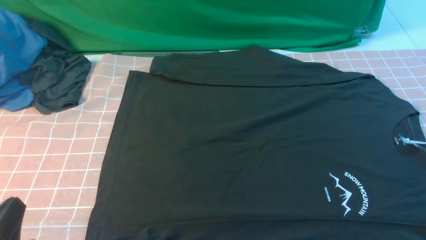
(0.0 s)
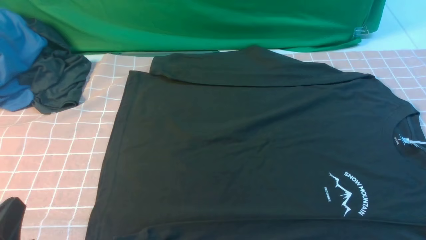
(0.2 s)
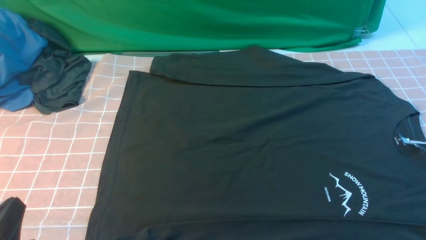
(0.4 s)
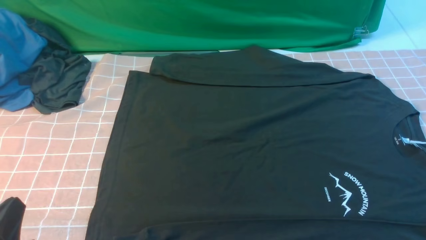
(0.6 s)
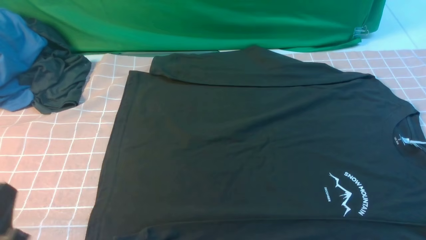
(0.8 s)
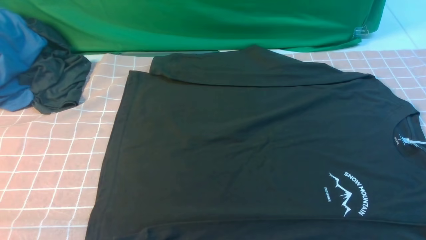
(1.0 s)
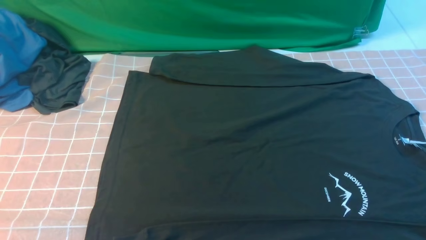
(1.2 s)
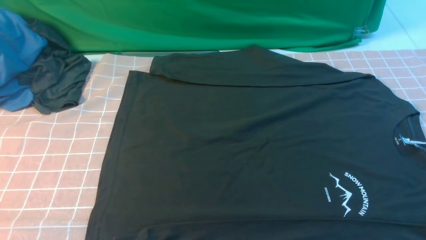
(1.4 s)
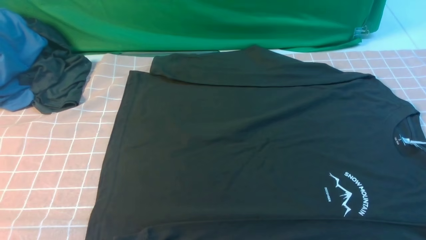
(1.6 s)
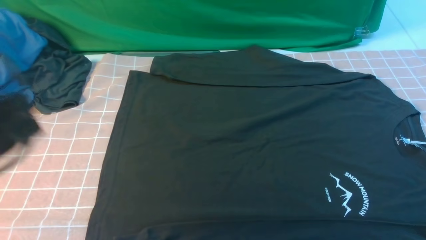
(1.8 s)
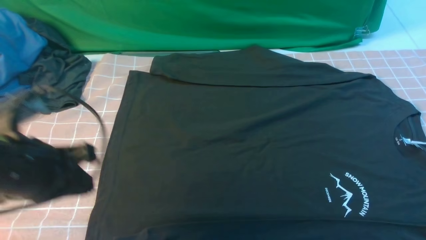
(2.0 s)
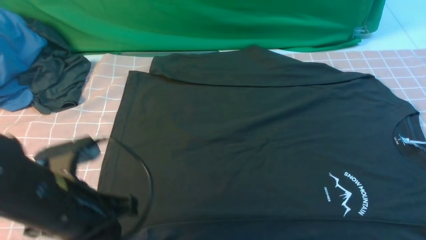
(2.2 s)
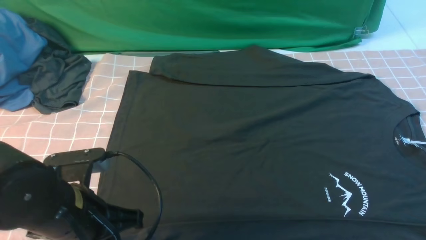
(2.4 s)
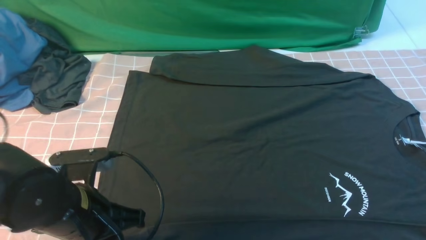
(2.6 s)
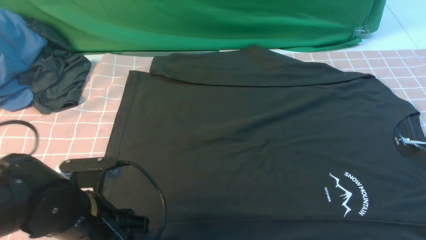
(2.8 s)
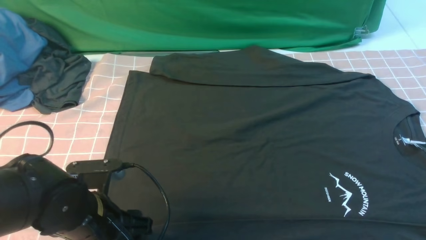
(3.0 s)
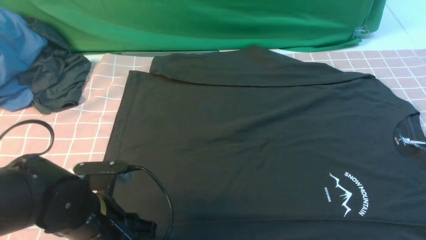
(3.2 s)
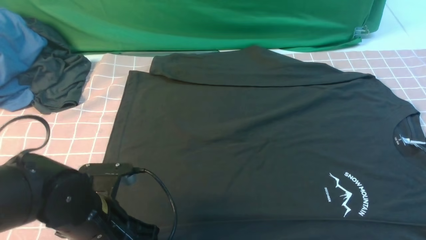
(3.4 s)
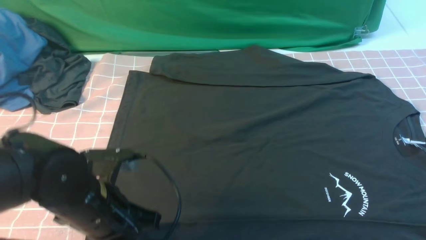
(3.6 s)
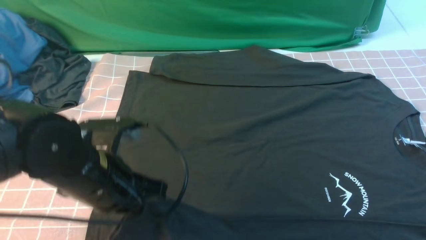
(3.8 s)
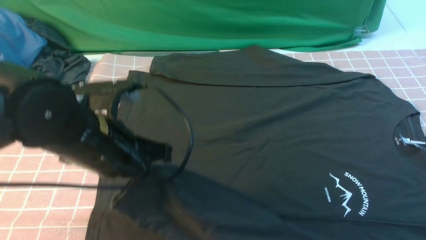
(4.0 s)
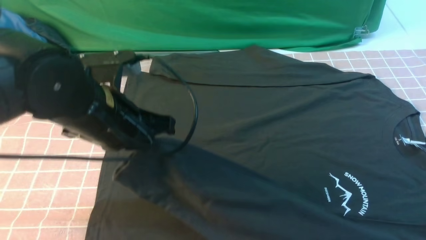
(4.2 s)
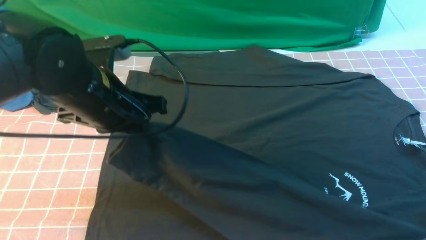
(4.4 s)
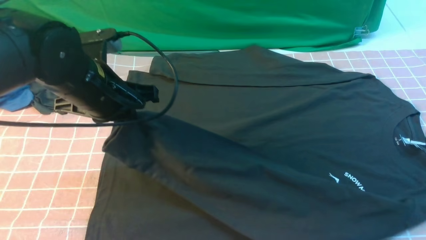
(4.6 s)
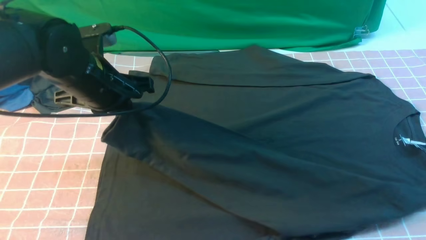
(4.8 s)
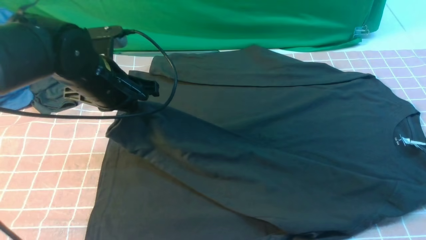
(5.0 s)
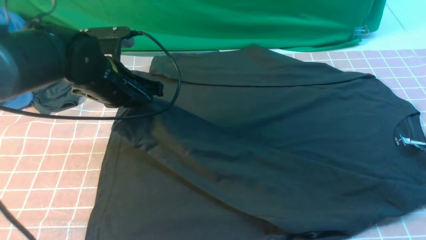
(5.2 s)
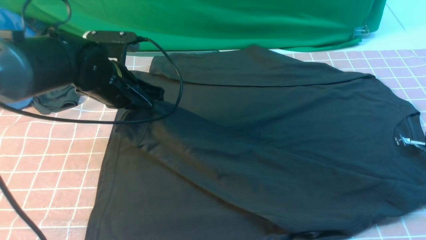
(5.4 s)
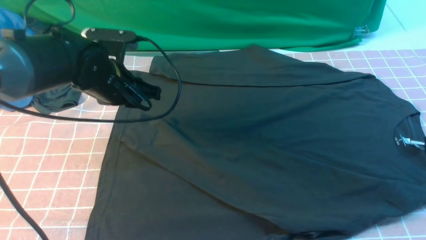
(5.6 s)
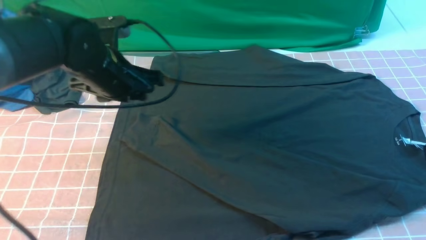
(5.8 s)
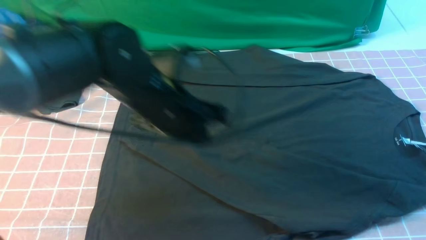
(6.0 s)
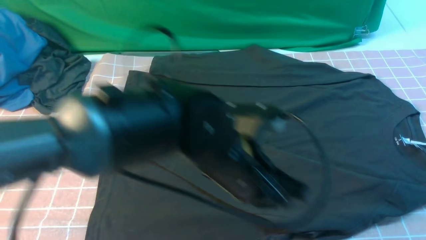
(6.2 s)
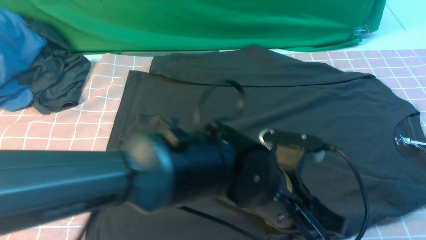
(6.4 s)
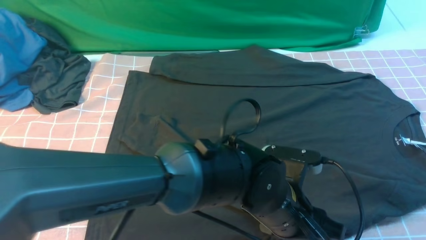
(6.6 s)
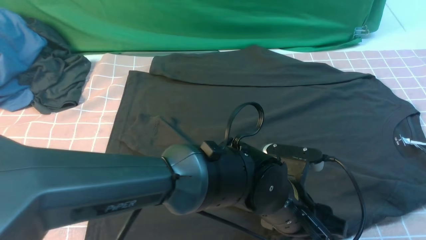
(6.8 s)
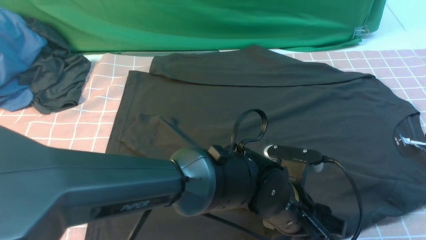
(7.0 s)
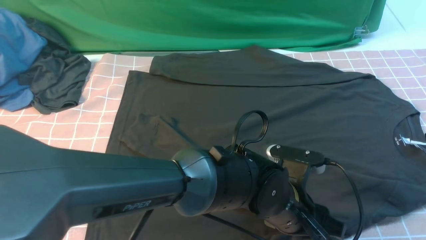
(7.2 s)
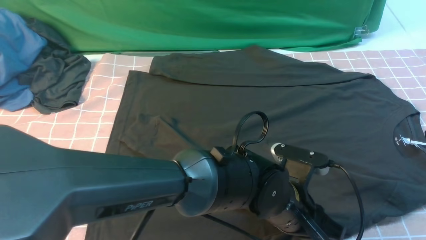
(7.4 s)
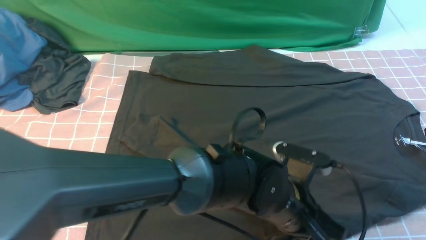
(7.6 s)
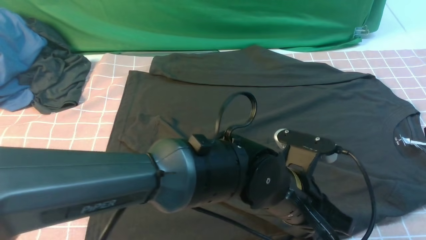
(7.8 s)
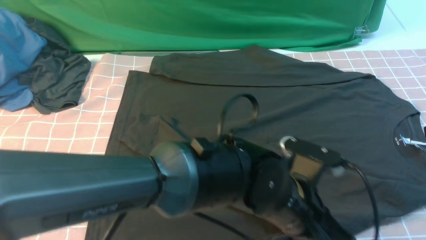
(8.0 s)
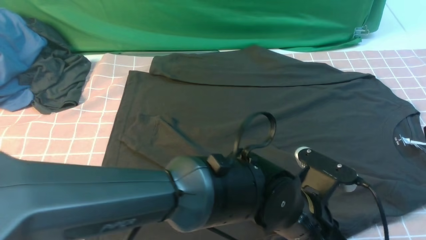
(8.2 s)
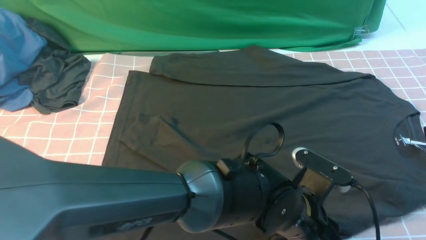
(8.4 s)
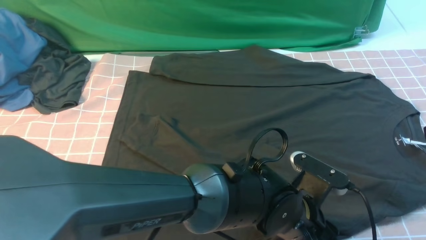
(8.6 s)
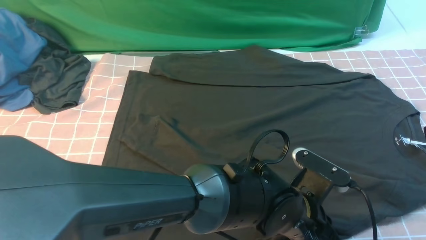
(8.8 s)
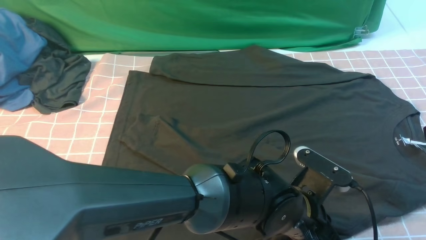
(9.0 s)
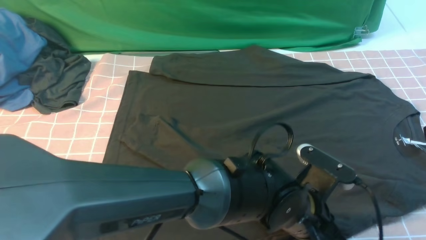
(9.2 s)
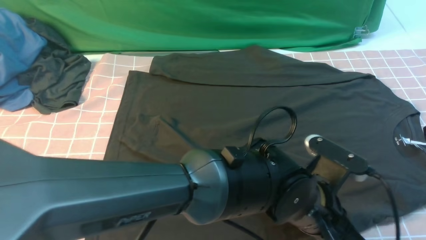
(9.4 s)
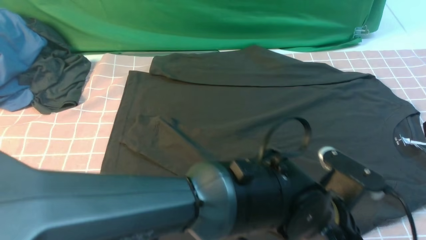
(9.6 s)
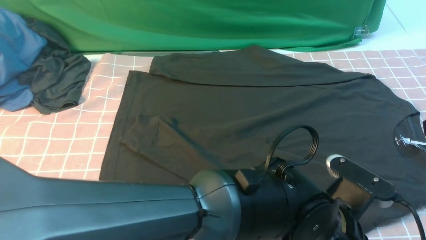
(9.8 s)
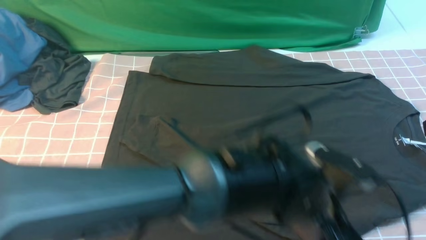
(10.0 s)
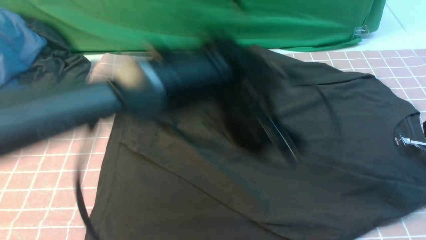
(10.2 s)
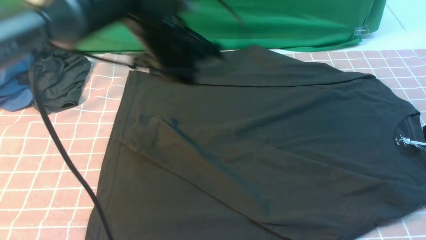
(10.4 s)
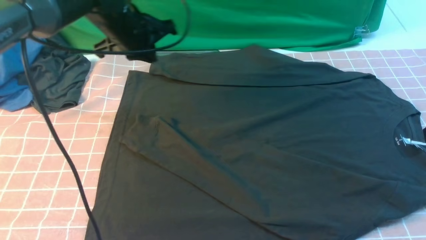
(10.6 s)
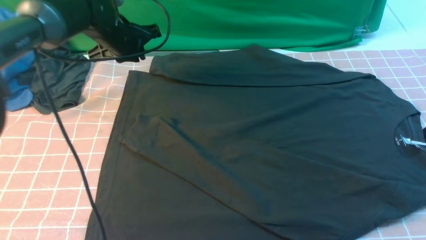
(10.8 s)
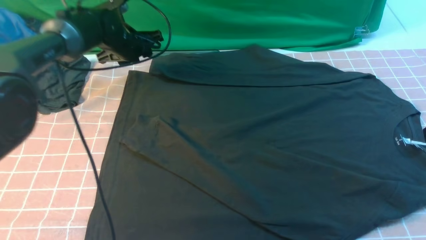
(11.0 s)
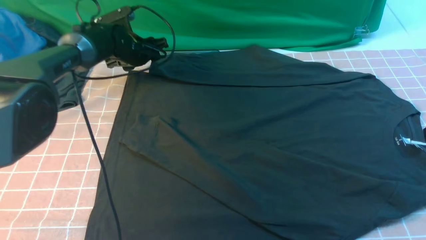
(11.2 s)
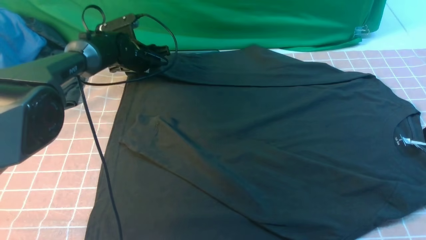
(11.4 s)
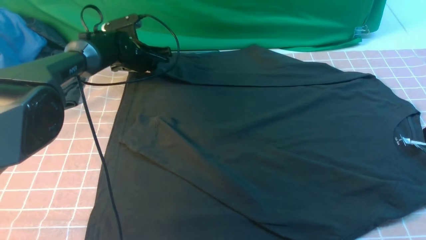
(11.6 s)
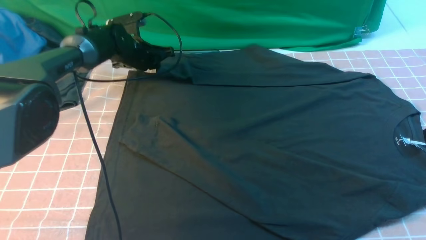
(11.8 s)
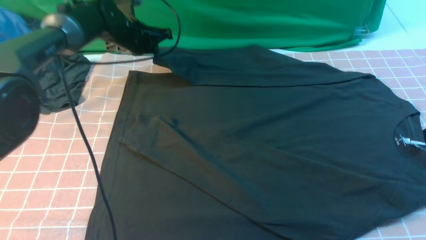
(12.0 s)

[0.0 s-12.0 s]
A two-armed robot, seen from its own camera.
Step, 0.0 to 3.6 s: use the left arm to clamp the cuff closest to it.
Step, 4.0 to 5.6 s: use the left arm to drag and place the cuff at the centered position on the left edge of the fabric.
Step, 5.8 to 9.2 s: use the left arm to clamp the cuff farthest from it.
0.0 to 1.6 s: The left gripper travels upward by about 15 cm.
1.6 to 3.0 s: The left gripper heads downward, to the right and forward, covering approximately 20 cm, and opens. Meanwhile the right gripper heads upward and forward, covering approximately 15 cm, and closes up.
3.0 to 4.4 s: The left gripper heads upward and forward, covering some 15 cm, and closes its fingers.
4.4 to 6.0 s: The left gripper shifts some 10 cm to the right.
6.0 to 7.6 s: The left gripper moves to the right, downward and backward, approximately 20 cm, and opens and closes again.
7.6 to 9.0 s: The left gripper opens and closes again.
9.0 to 10.4 s: The left gripper shifts roughly 30 cm forward, to the left and upward.
10.4 to 12.0 s: The left gripper moves forward, to the left and downward, about 20 cm, and opens, then closes once more.

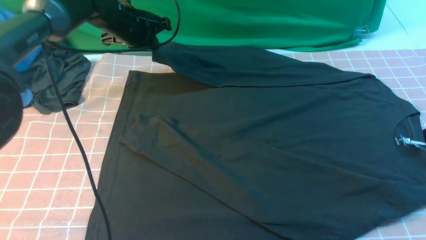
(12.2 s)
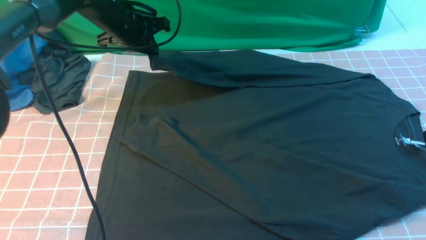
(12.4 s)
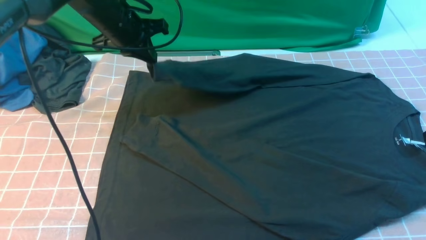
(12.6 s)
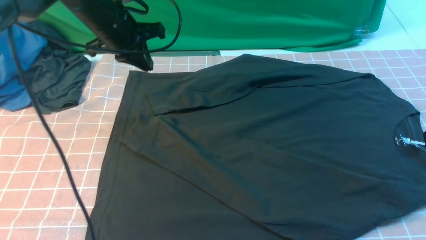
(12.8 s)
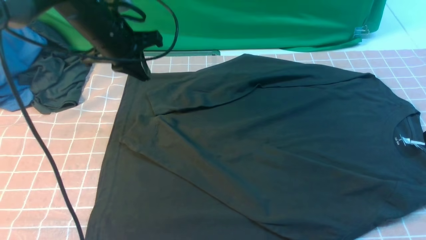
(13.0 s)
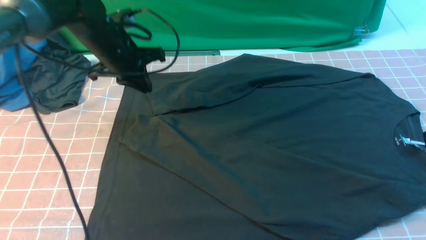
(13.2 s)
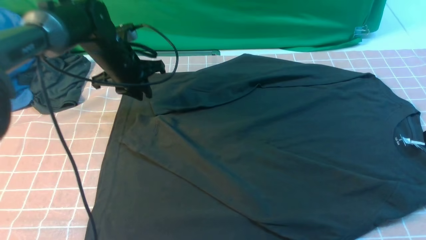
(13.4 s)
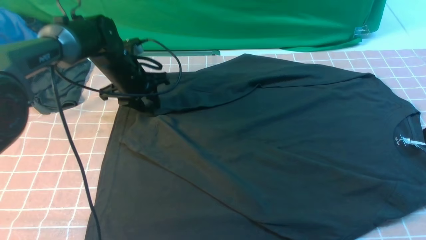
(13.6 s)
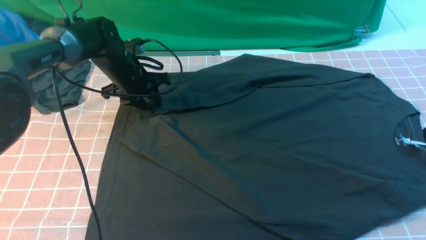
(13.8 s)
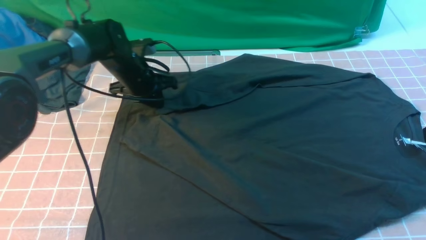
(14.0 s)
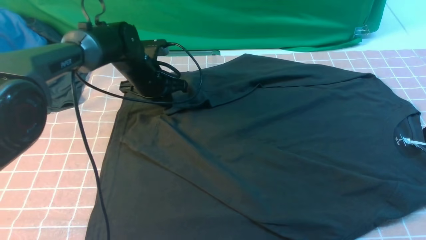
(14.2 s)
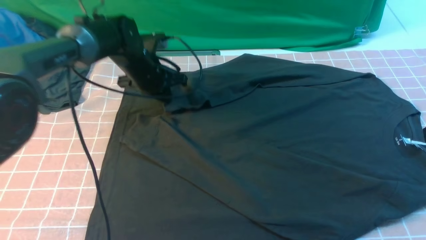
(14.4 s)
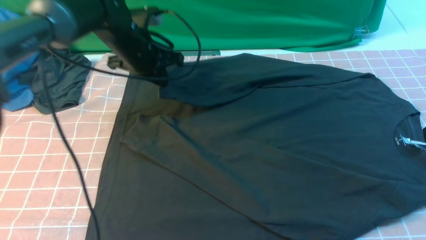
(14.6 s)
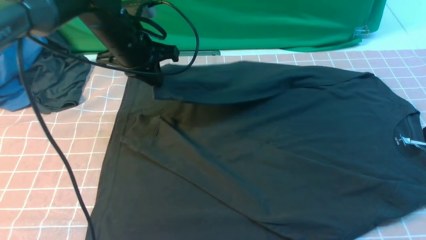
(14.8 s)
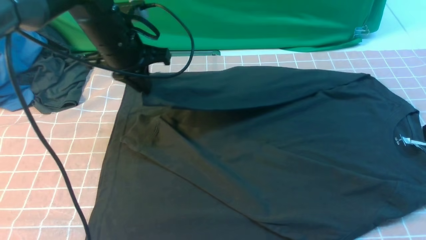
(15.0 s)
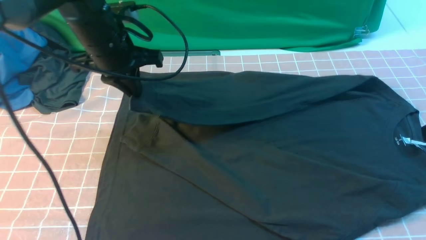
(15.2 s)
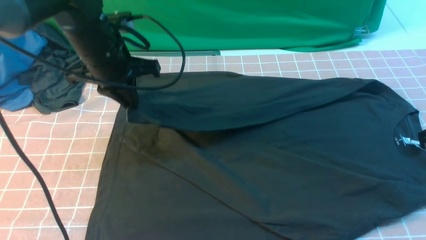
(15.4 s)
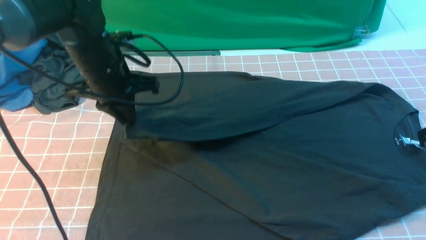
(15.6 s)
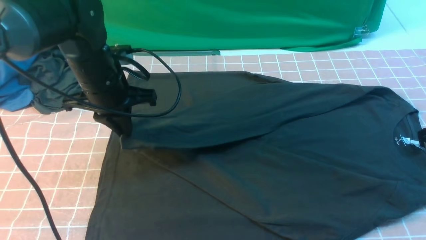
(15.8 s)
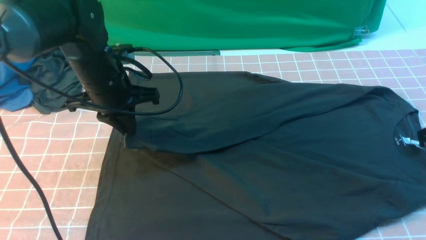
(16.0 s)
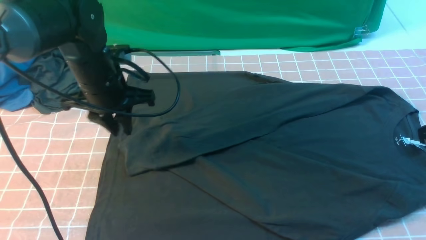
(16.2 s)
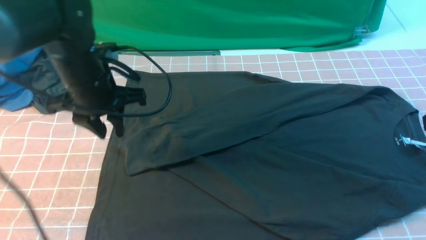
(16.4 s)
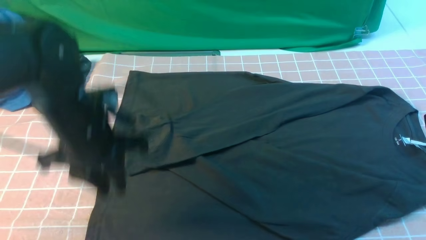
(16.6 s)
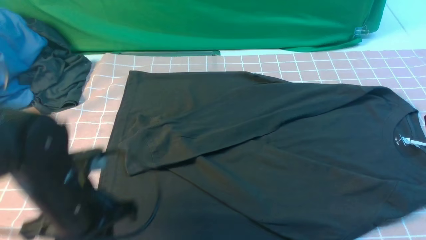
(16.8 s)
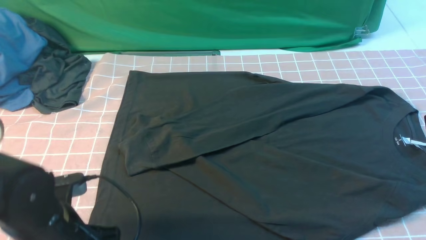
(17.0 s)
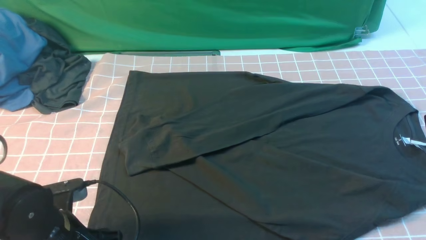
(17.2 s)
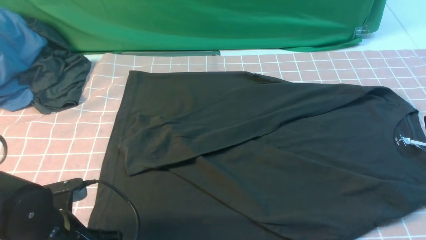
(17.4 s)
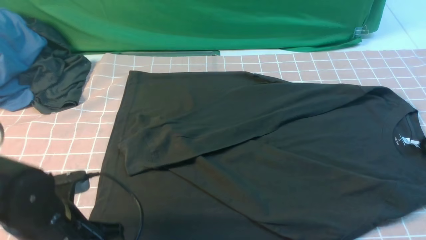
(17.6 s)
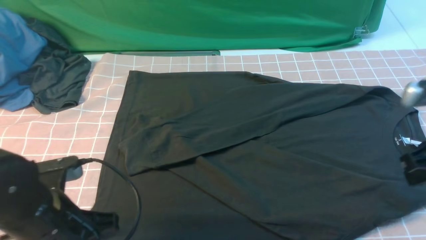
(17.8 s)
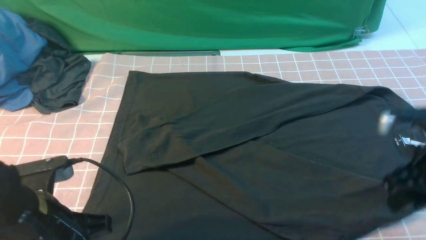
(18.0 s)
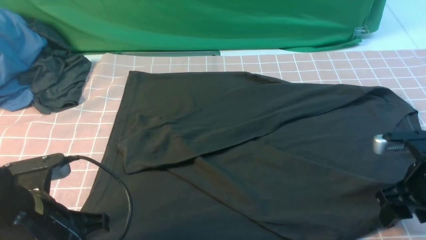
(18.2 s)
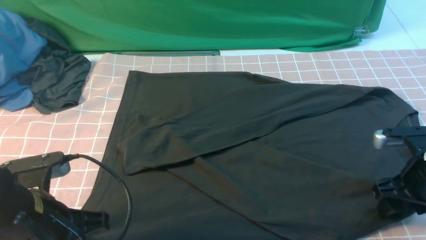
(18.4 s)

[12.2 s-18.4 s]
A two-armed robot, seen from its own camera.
Step, 12.2 to 16.2 s: use the left arm to drag and drop the cuff onto the cuff closest to the left arm.
12.2 to 13.8 s: The left gripper travels downward by some 10 cm, and opens up.
13.8 to 15.4 s: The left gripper heads upward and backward, covering about 15 cm, and closes up.
15.4 to 16.8 s: The left gripper heads backward and downward, covering approximately 20 cm, and opens.
16.8 to 18.4 s: The left gripper shifts by approximately 5 cm, and closes up. The right gripper heads downward, covering roughly 15 cm, and opens.
